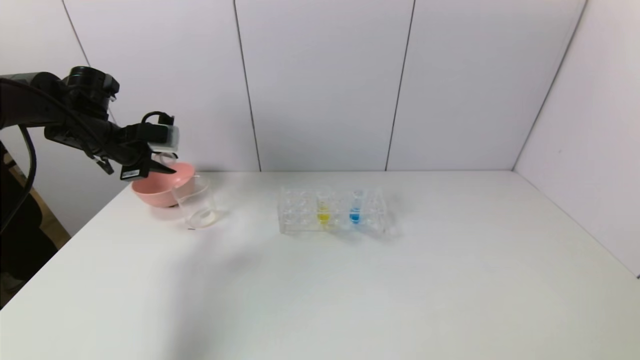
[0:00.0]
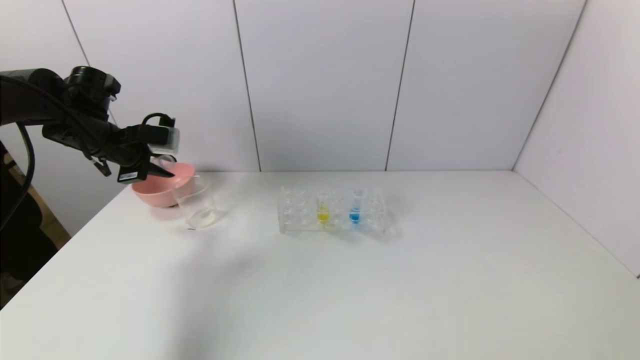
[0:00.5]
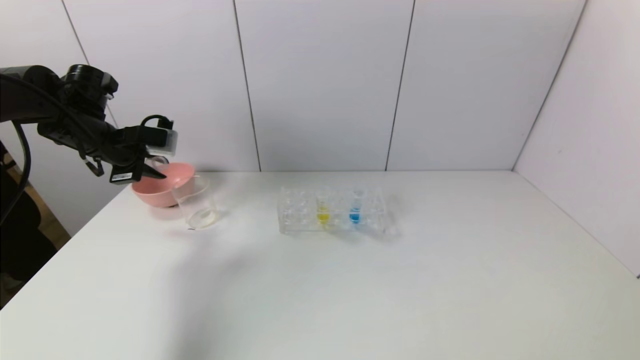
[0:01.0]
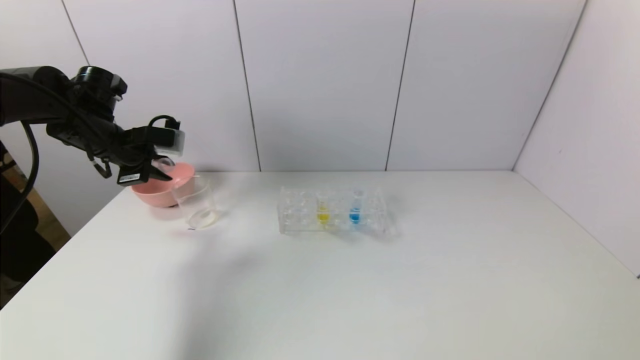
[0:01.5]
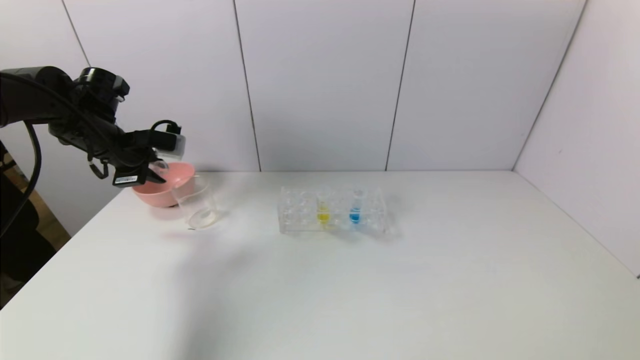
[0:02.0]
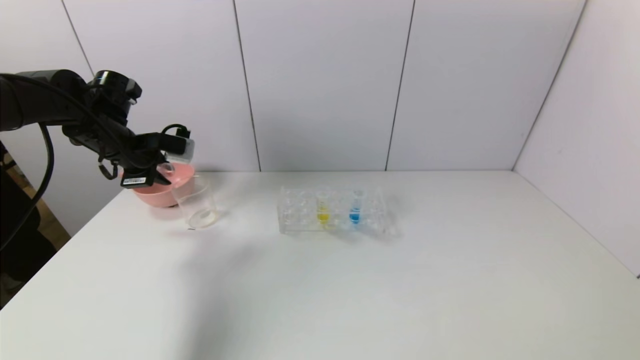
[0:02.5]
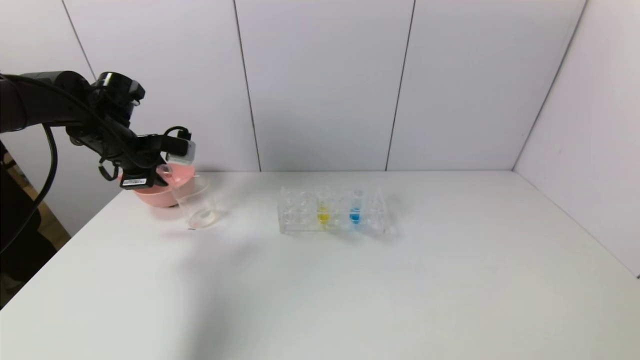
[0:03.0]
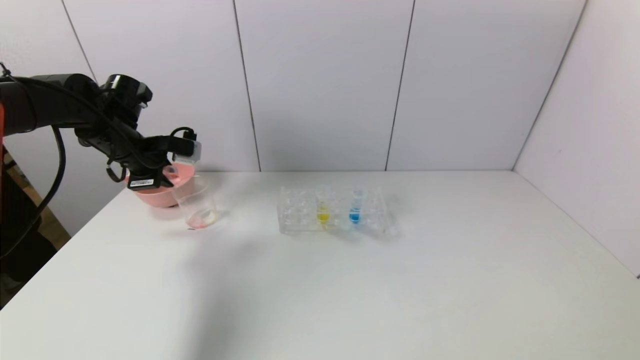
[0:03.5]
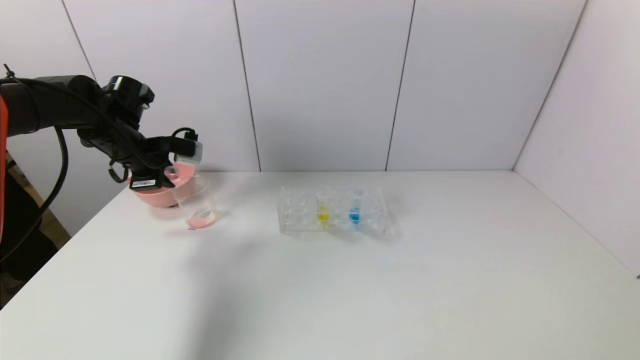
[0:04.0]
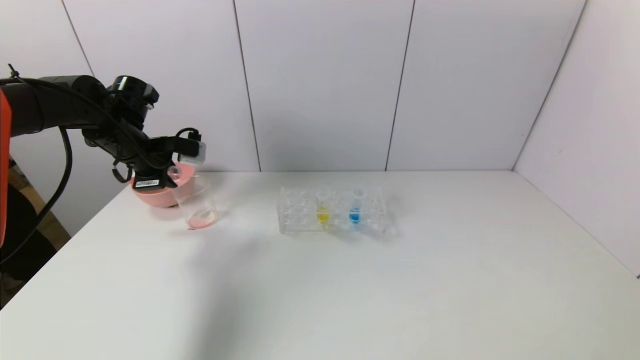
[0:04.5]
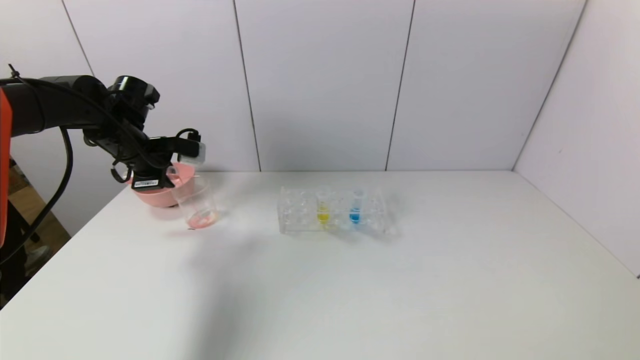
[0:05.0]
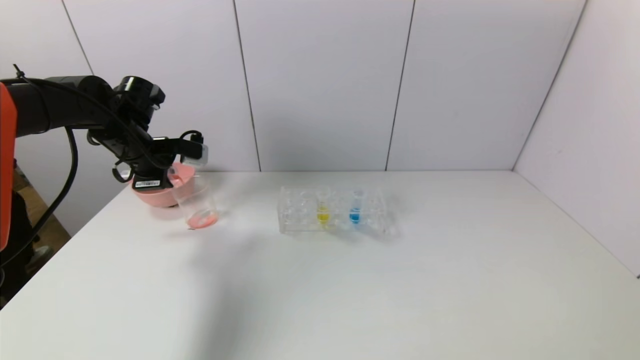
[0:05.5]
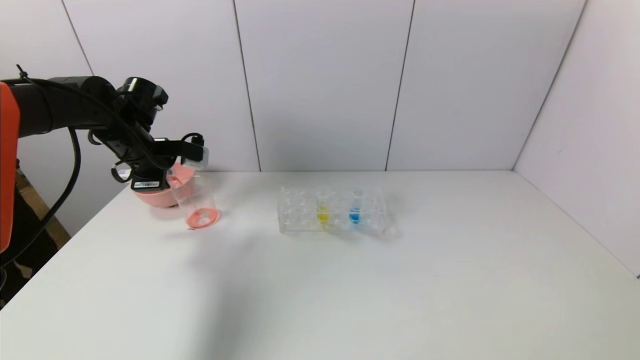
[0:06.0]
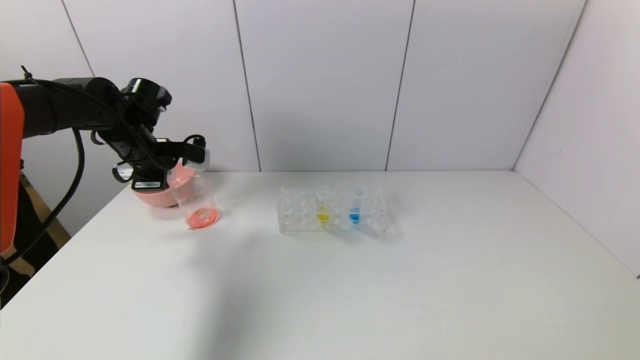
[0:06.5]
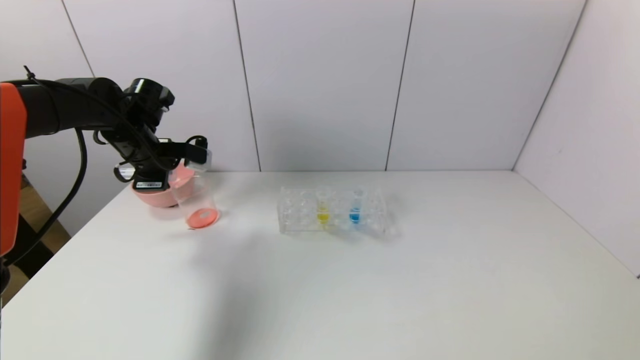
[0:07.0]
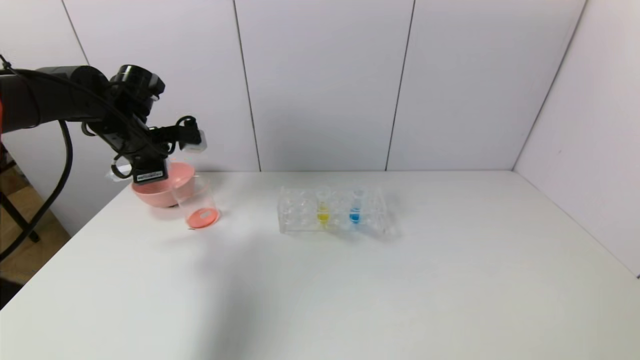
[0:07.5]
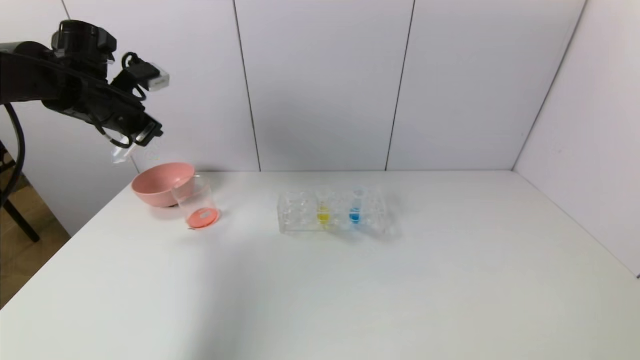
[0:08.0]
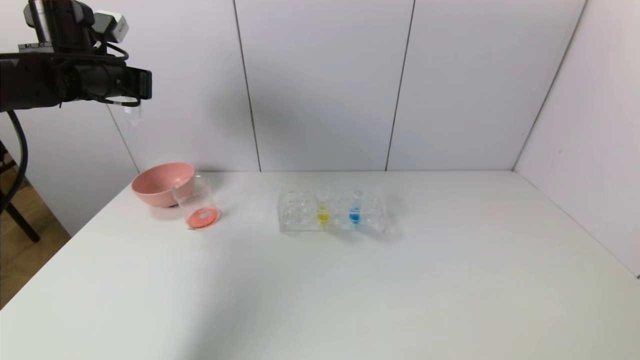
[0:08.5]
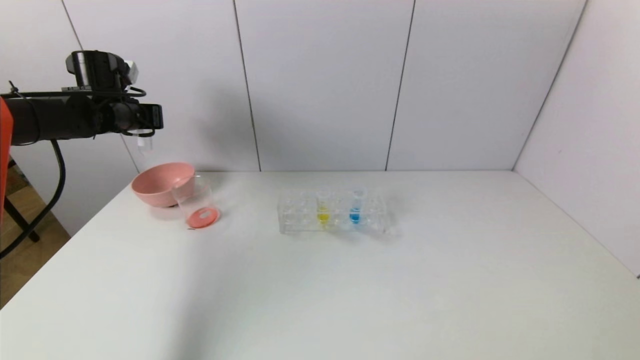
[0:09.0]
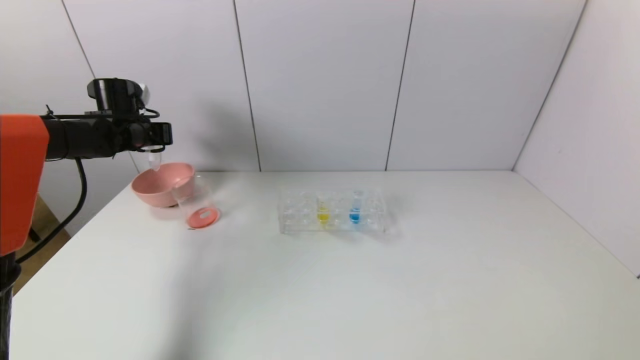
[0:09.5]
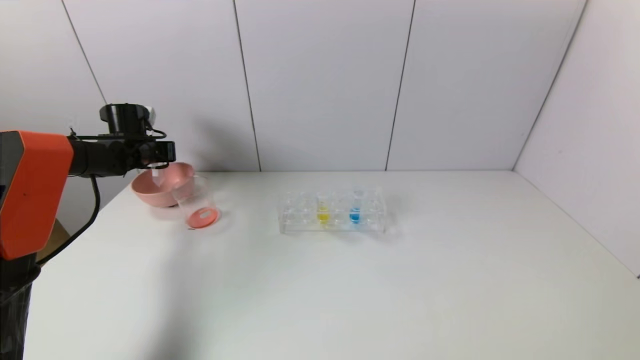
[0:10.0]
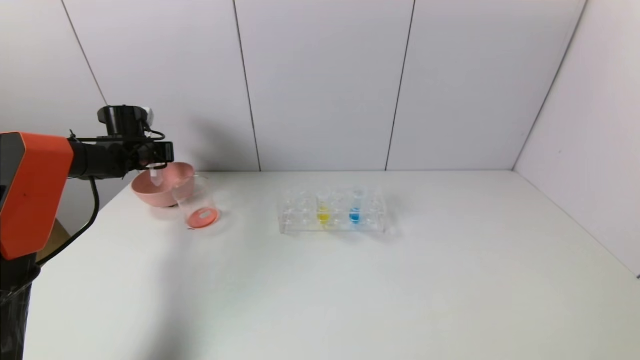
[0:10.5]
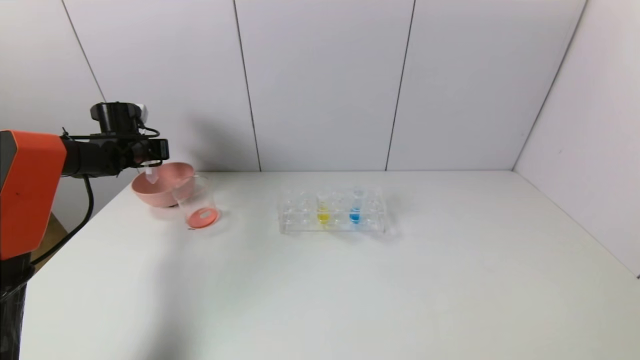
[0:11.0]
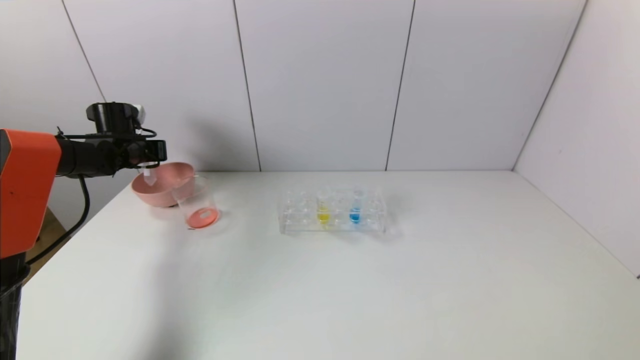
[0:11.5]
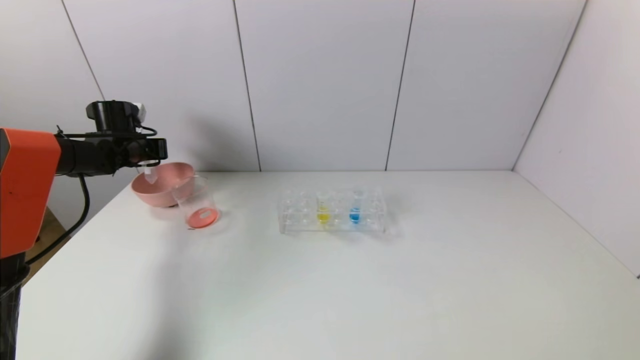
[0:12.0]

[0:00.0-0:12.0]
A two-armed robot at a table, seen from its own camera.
Task of the whole recording: pick up the test tube with yellow pigment and the test tube with red pigment by grippers and pour them into the beaker.
Step, 0:00.0 to 0:07.0: Pour the red reagent into the graduated cylinder with the left gripper.
0:00.0 to 0:04.0: The grippers make only small movements.
0:04.0 to 0:06.0: There are only small adjustments of the grippers.
0:06.0 to 0:08.0: The left gripper shifts roughly 10 cm upward.
0:08.0 to 0:10.0: The left gripper shifts roughly 15 cm downward and forward.
0:10.0 to 0:12.0: The grippers make only small movements.

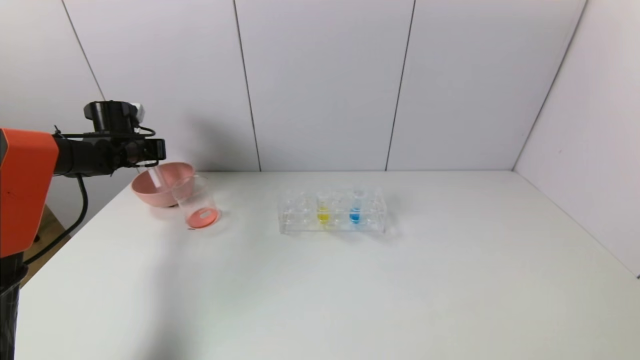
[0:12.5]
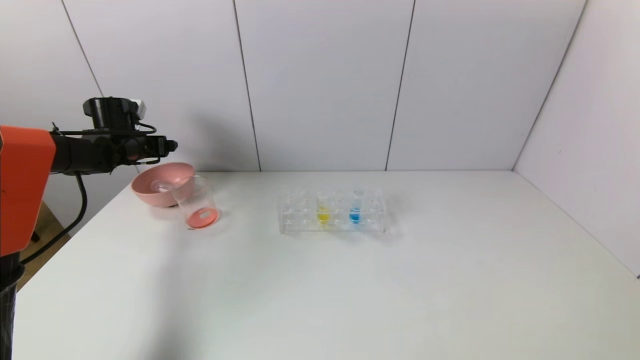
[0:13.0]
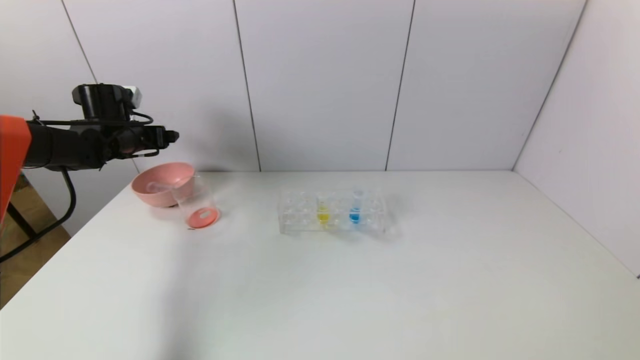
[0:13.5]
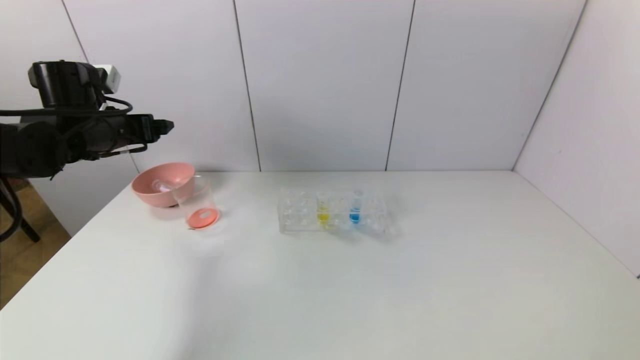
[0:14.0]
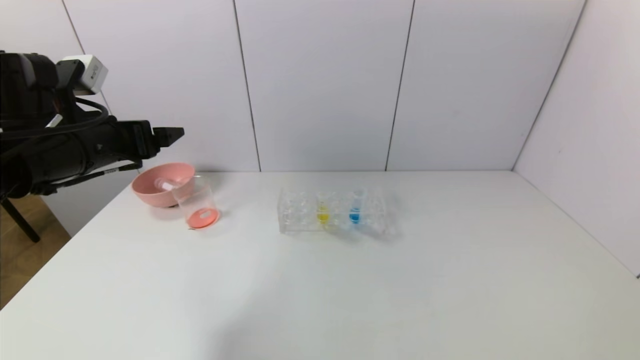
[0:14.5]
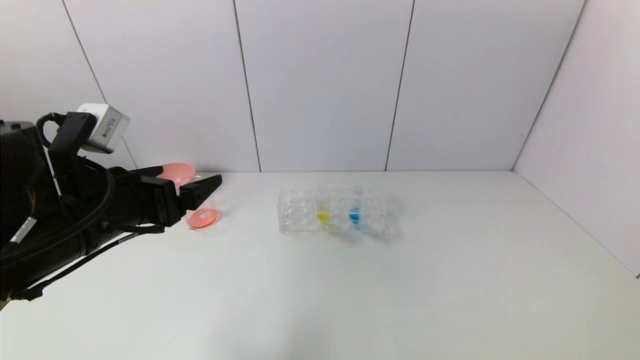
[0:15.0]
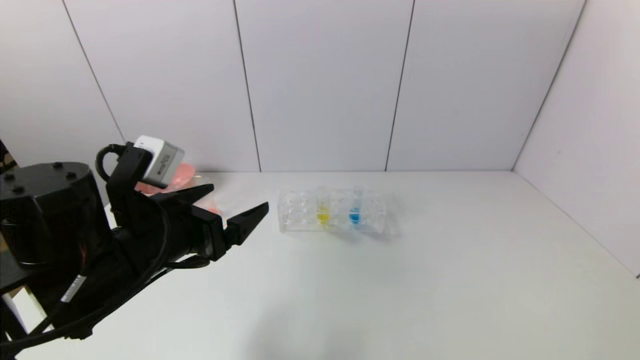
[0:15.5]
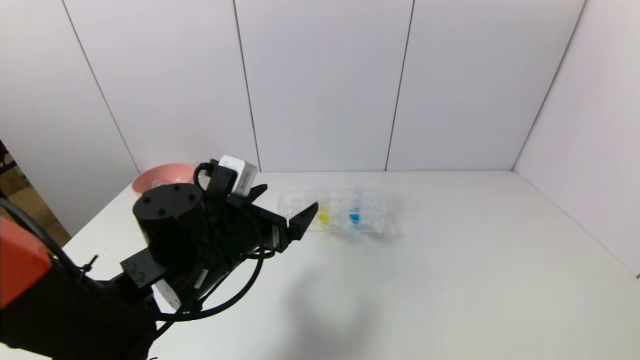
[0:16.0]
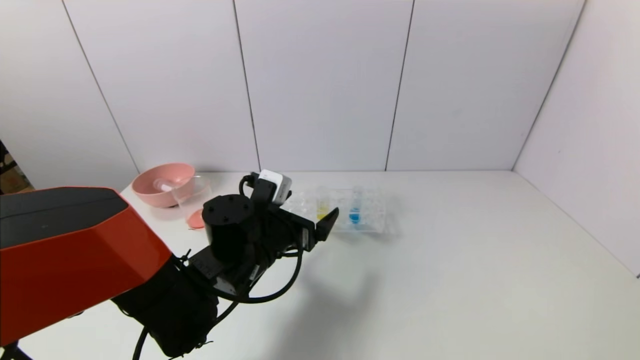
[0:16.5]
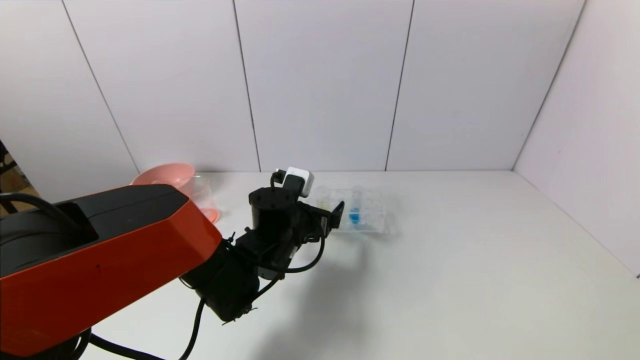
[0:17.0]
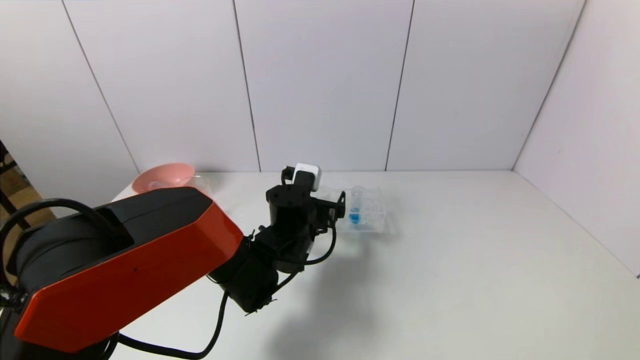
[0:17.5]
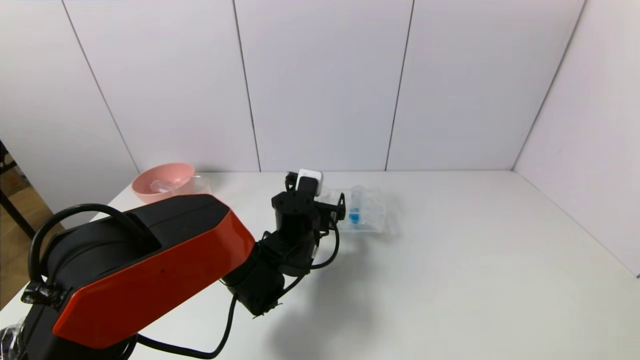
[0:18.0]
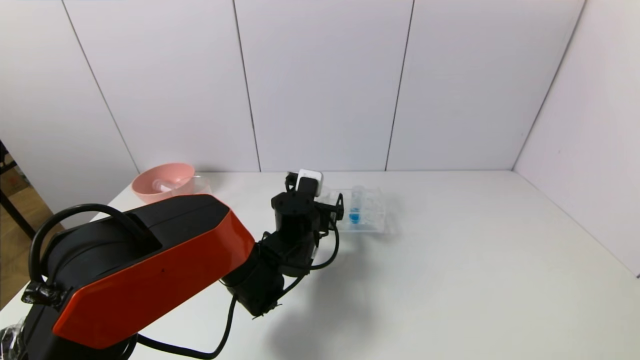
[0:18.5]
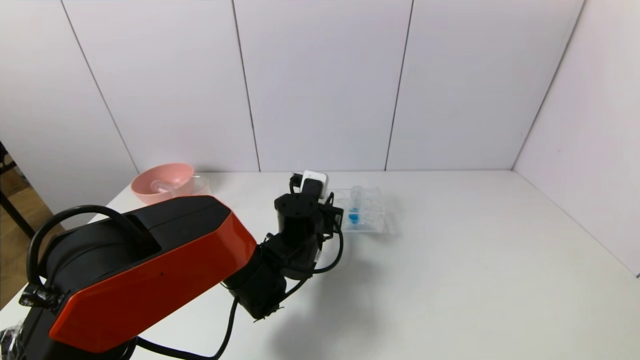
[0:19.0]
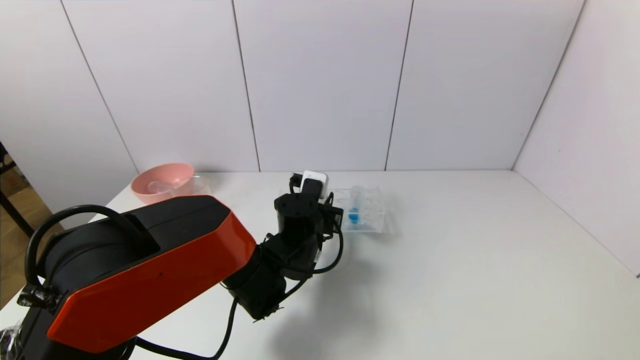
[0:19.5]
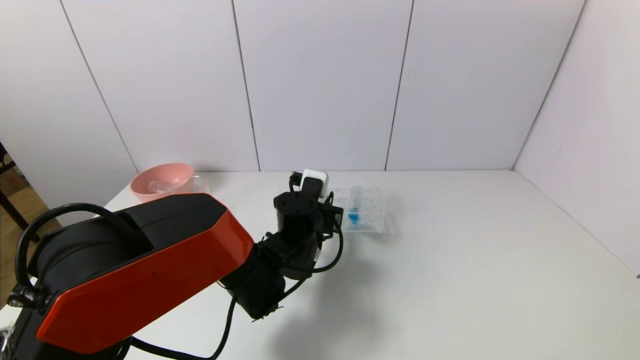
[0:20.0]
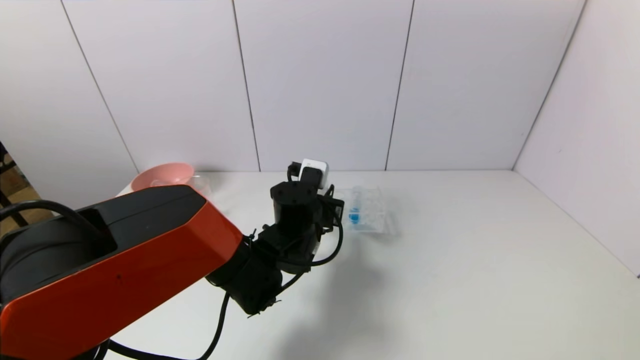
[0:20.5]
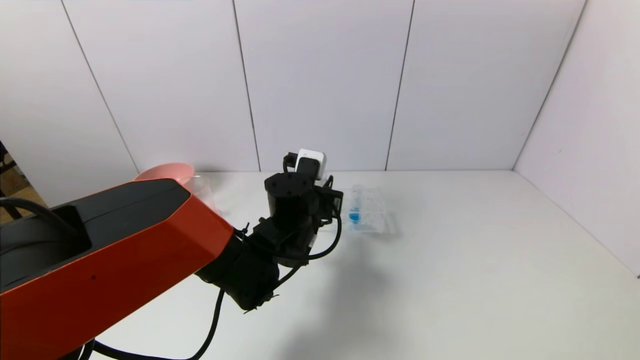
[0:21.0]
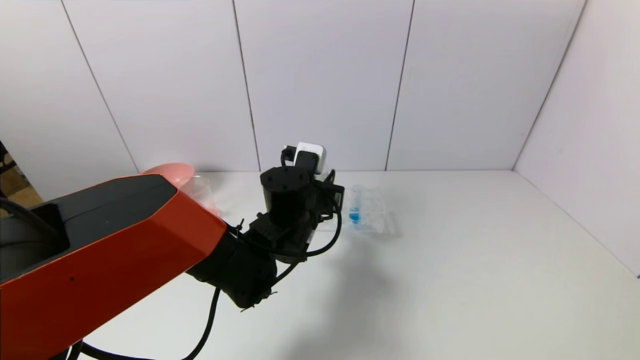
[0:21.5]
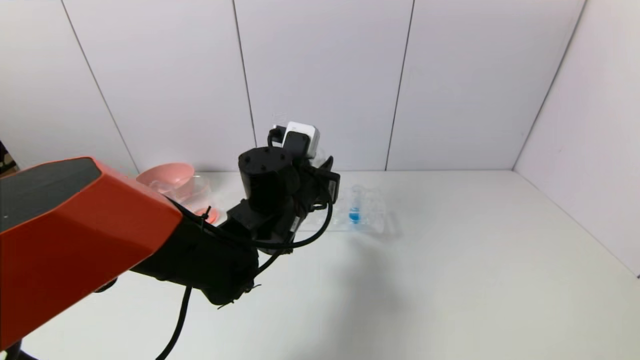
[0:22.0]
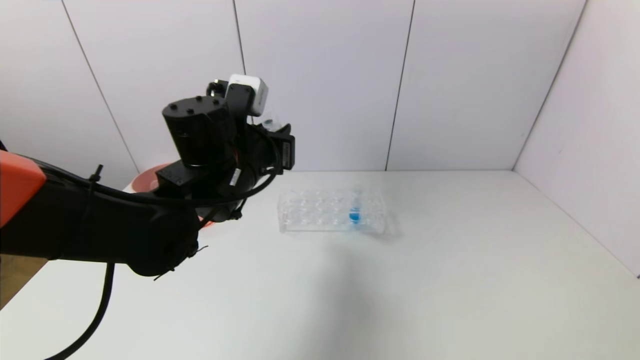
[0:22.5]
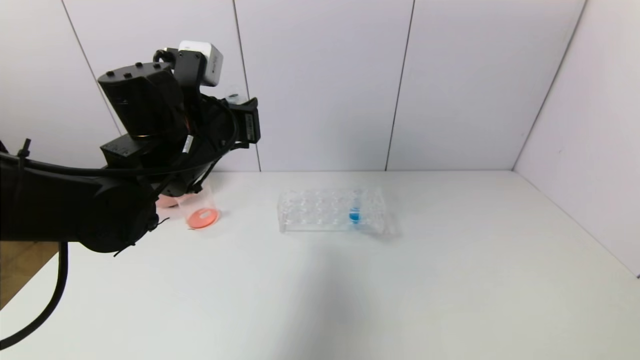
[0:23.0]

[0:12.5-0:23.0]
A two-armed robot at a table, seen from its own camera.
Task of the whole recording: pick up the test tube with yellow pigment and the test tube with red pigment by grippers and pour them into the beaker.
Step, 0:13.0 to 0:19.0: Grasp the yellow reagent with the left gripper.
0:12.5 to 0:14.5: The left gripper heads backward, to the right and upward, covering roughly 25 cm, and opens.
0:14.5 to 0:16.5: The left gripper shifts about 25 cm to the right and downward.
0:16.5 to 0:19.0: The left gripper shifts approximately 10 cm to the right and forward, and closes up.
0:19.0 to 0:21.0: There are only small adjustments of the grippers.
0:21.0 to 0:23.0: The left gripper is displaced upward and to the left by about 20 cm.
